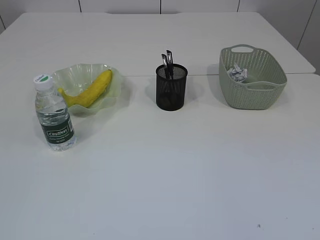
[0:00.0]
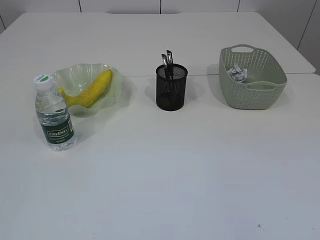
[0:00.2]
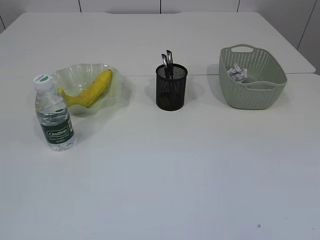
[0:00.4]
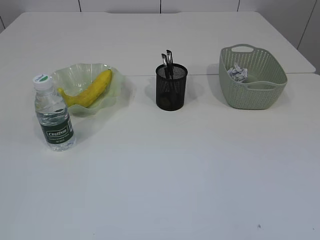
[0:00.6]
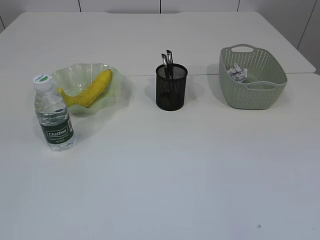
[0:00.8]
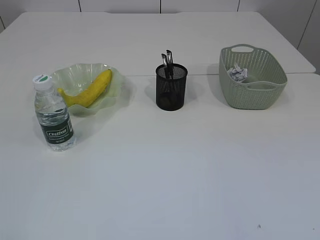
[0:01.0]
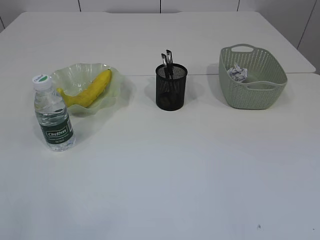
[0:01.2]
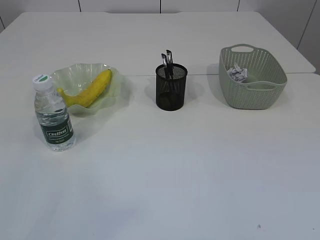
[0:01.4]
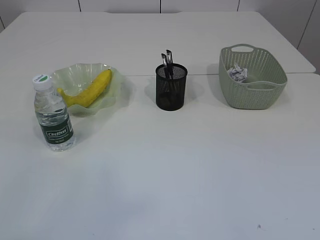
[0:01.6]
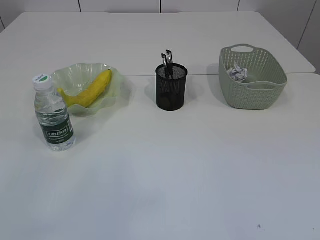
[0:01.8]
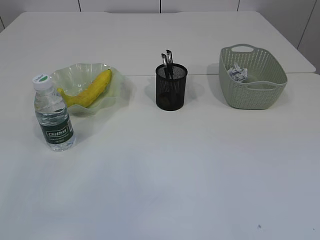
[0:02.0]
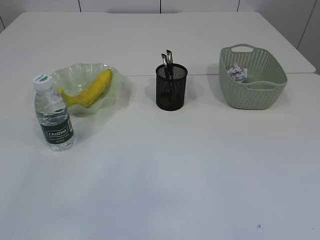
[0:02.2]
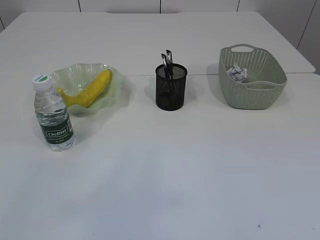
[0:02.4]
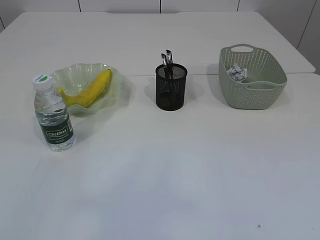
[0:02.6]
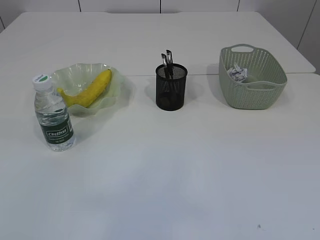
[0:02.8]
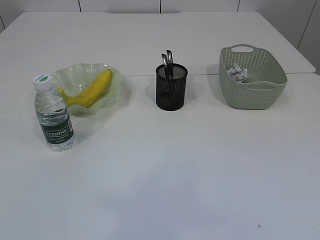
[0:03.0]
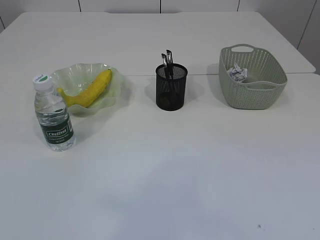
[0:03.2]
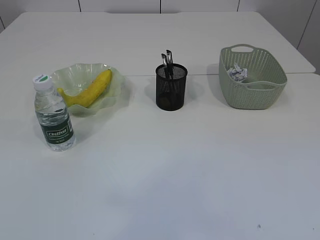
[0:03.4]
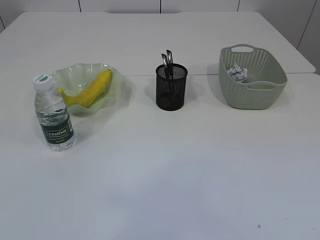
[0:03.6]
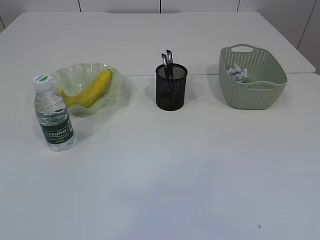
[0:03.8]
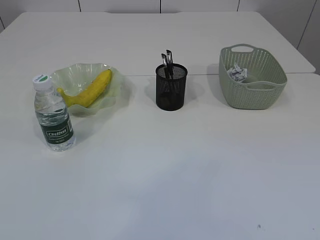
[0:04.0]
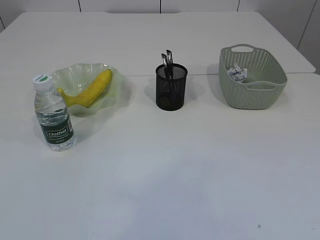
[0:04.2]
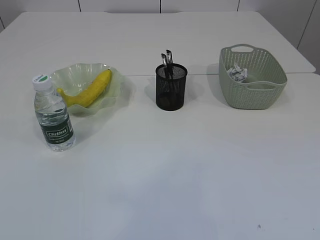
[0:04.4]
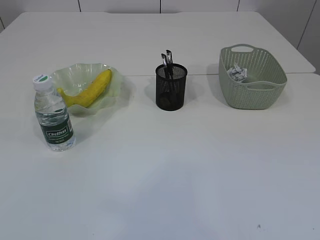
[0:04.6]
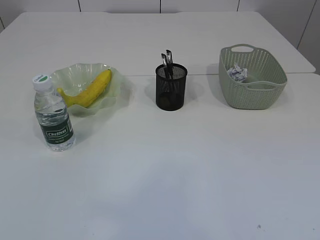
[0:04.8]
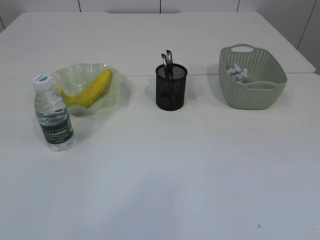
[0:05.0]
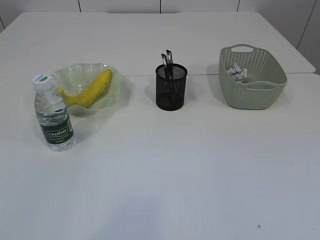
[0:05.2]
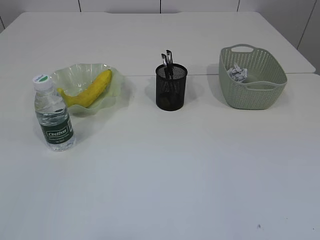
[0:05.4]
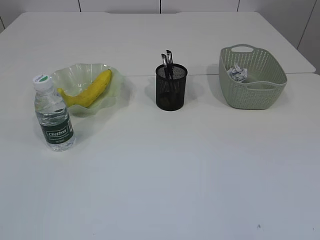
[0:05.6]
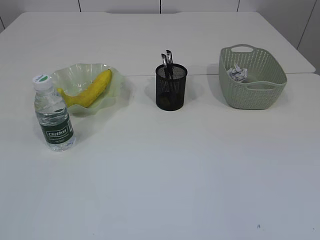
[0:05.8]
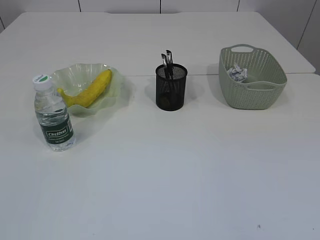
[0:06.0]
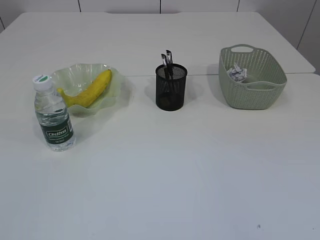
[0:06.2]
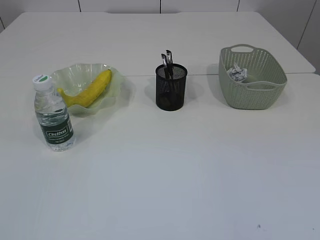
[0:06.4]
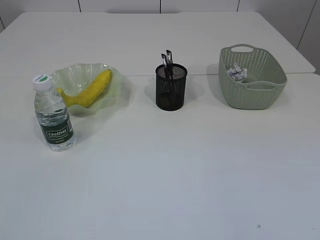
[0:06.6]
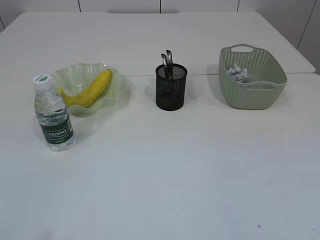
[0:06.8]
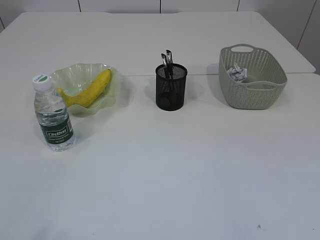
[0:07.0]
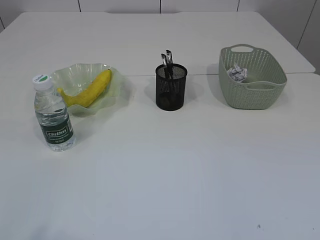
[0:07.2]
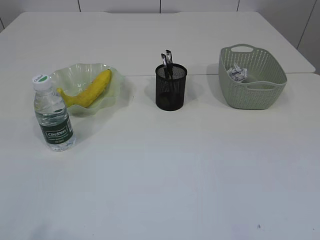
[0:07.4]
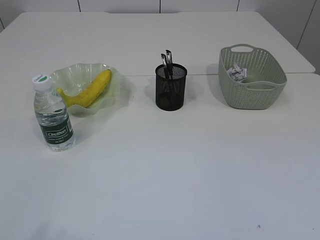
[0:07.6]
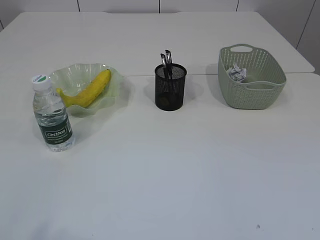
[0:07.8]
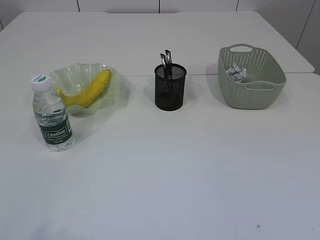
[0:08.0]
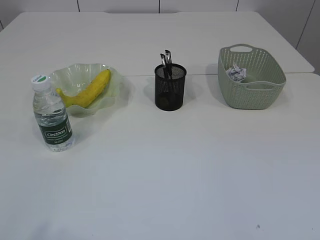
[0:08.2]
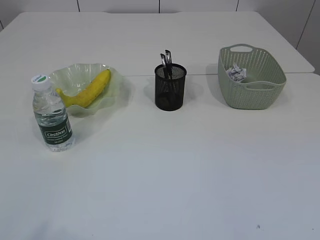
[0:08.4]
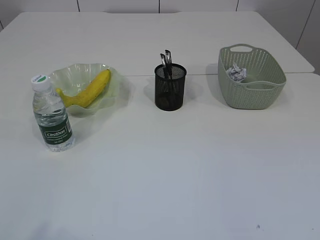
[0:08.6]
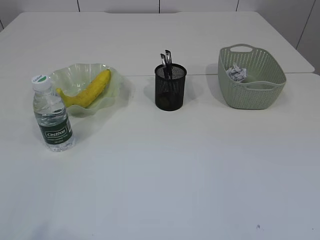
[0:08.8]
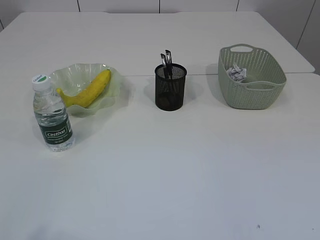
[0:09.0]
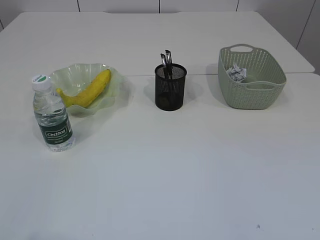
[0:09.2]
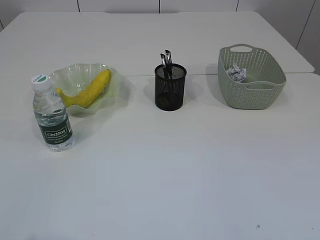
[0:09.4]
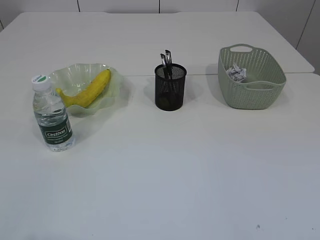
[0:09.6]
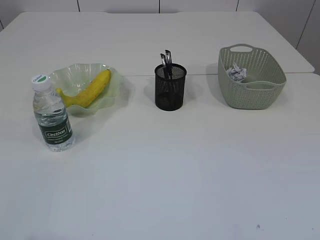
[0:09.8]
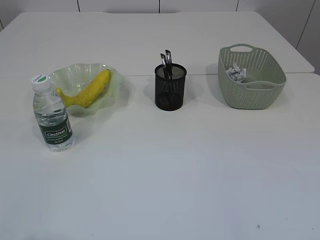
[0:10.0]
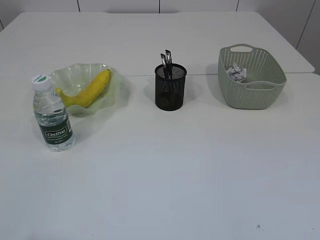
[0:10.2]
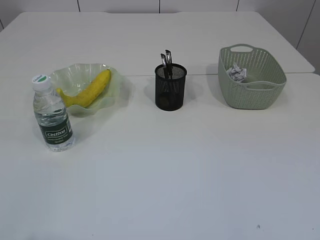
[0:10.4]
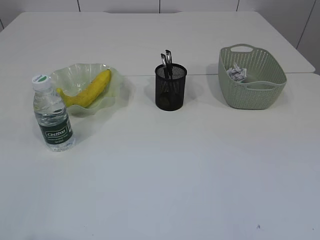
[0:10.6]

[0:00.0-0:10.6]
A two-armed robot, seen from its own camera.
0:07.6 to 0:09.0: Both grippers stay about where they are.

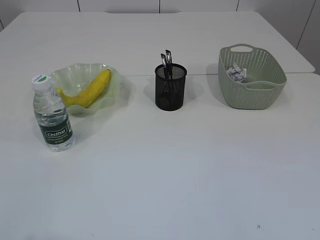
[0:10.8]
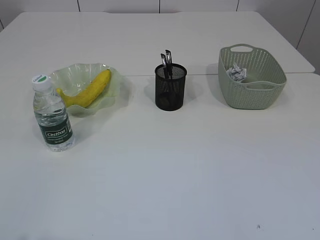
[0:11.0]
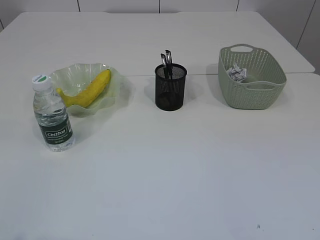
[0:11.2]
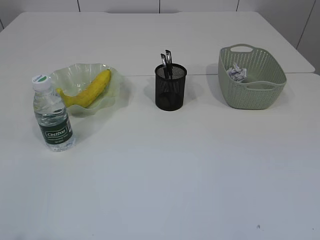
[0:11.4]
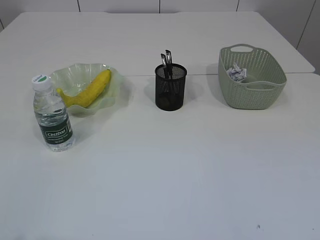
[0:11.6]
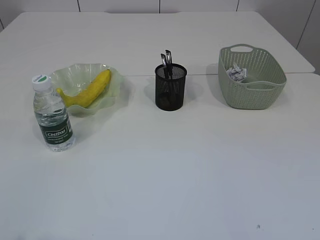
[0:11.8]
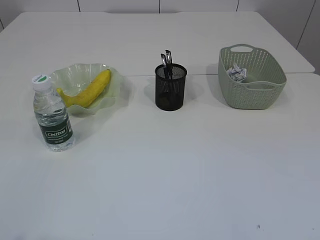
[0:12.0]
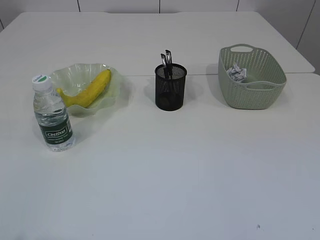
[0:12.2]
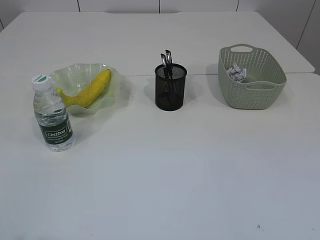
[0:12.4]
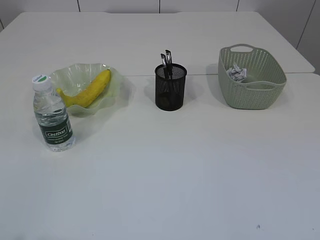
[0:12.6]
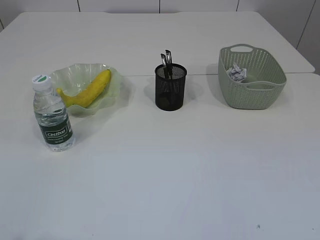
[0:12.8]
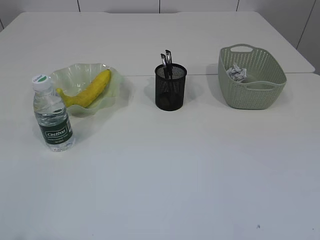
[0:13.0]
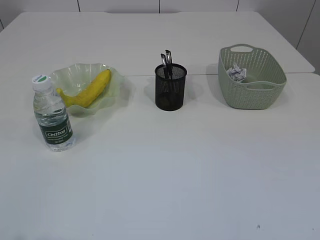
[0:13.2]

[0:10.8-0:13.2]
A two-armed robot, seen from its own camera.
0:12.0 to 0:13.2: Both grippers stay put.

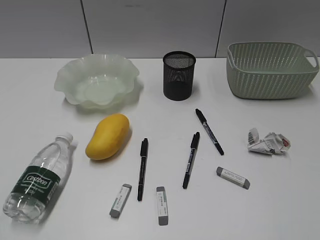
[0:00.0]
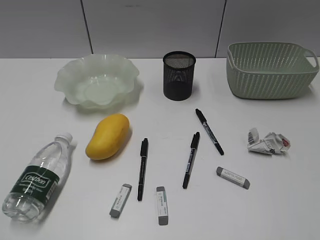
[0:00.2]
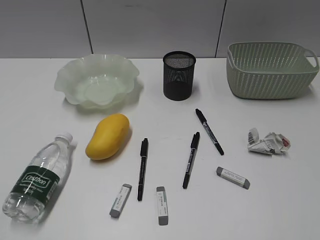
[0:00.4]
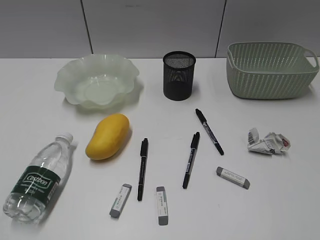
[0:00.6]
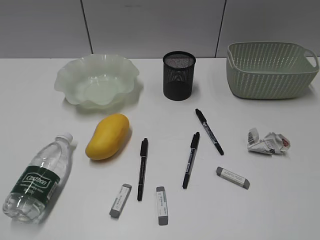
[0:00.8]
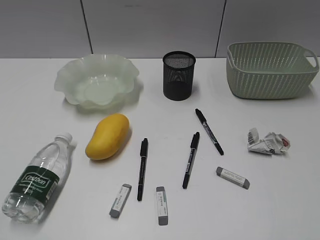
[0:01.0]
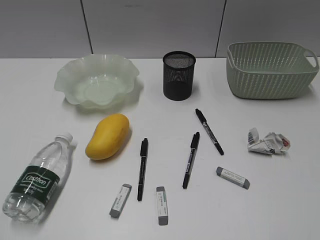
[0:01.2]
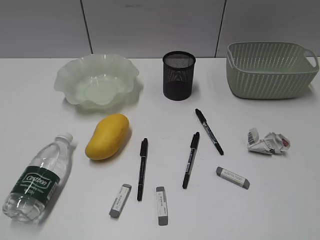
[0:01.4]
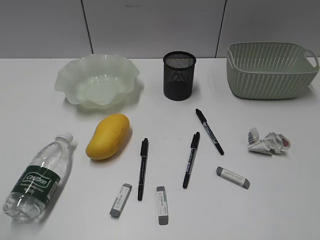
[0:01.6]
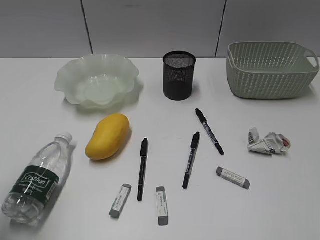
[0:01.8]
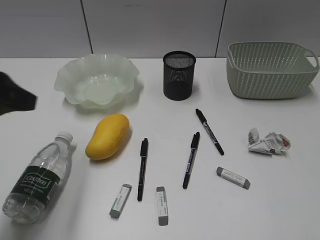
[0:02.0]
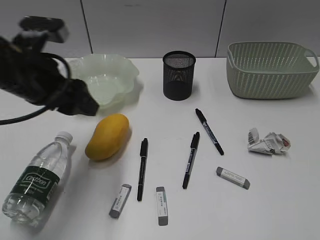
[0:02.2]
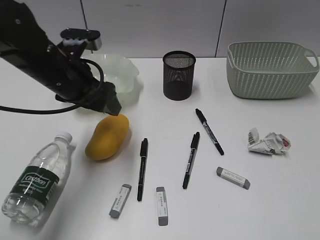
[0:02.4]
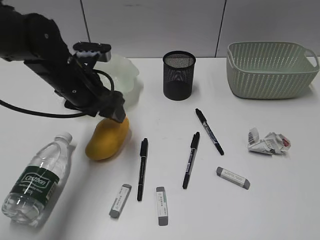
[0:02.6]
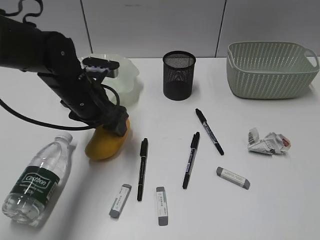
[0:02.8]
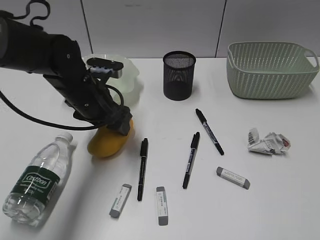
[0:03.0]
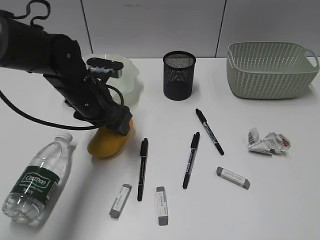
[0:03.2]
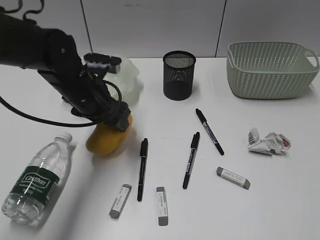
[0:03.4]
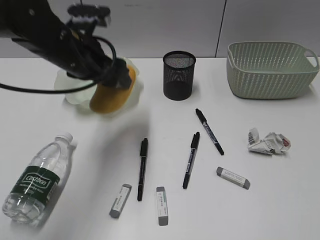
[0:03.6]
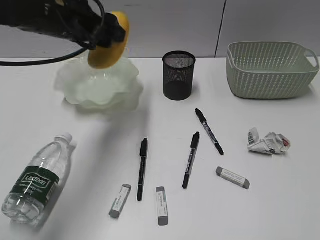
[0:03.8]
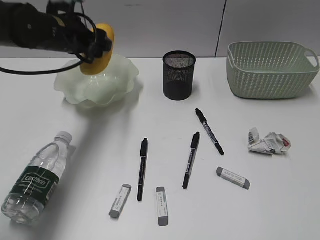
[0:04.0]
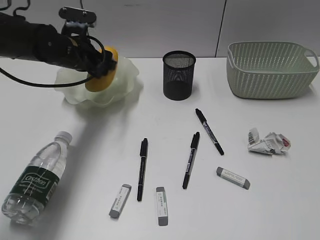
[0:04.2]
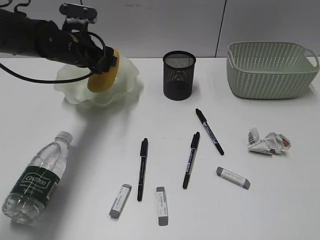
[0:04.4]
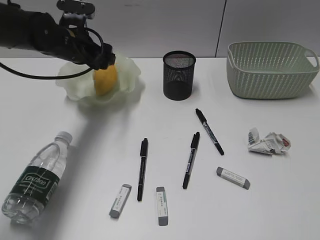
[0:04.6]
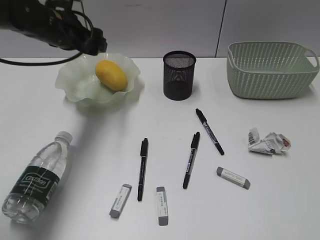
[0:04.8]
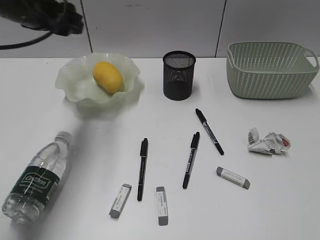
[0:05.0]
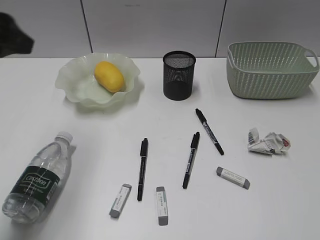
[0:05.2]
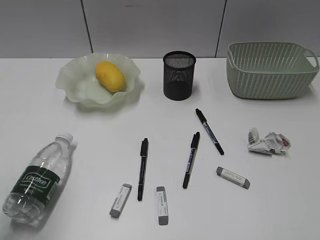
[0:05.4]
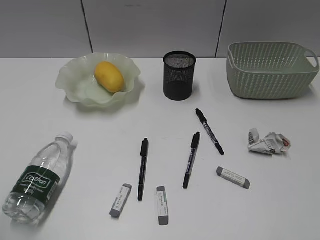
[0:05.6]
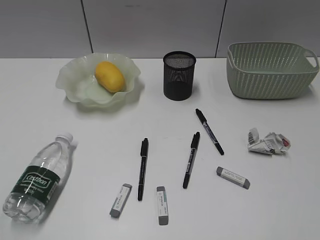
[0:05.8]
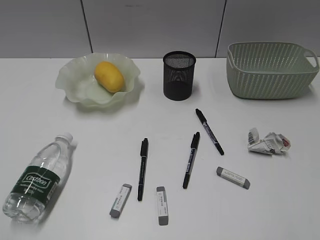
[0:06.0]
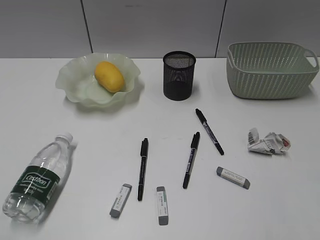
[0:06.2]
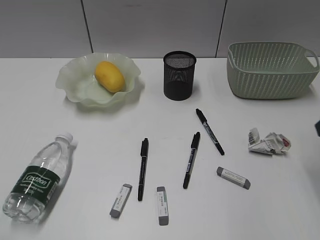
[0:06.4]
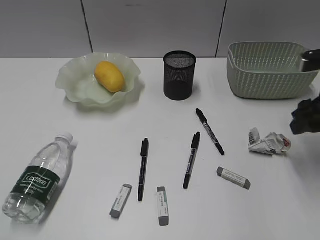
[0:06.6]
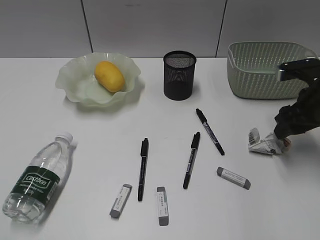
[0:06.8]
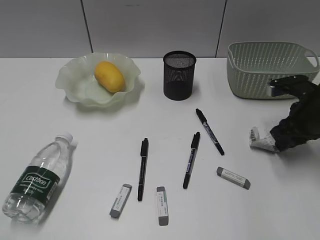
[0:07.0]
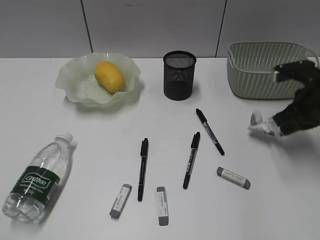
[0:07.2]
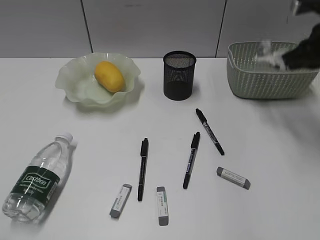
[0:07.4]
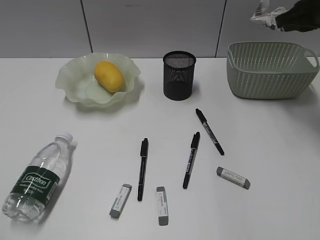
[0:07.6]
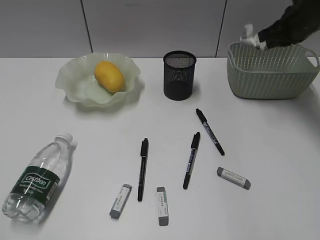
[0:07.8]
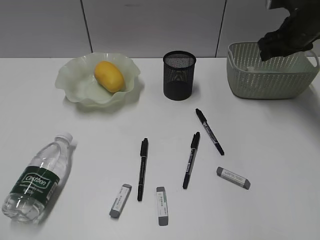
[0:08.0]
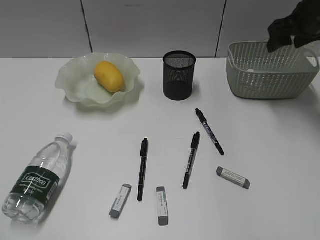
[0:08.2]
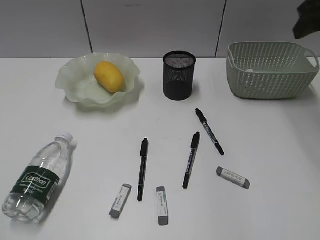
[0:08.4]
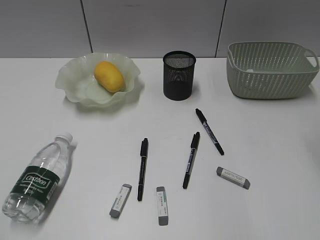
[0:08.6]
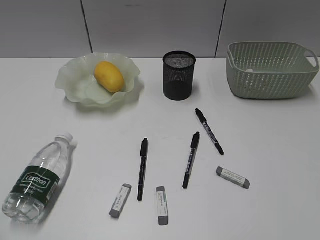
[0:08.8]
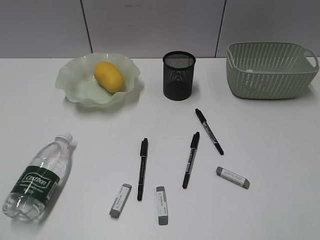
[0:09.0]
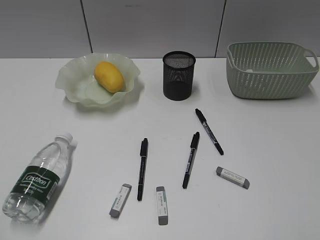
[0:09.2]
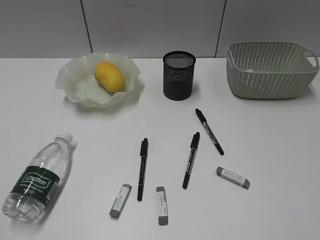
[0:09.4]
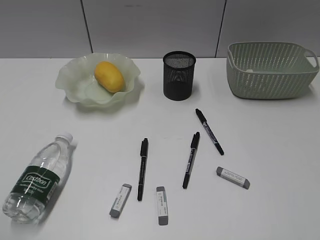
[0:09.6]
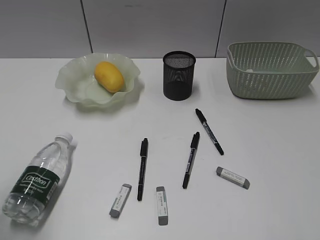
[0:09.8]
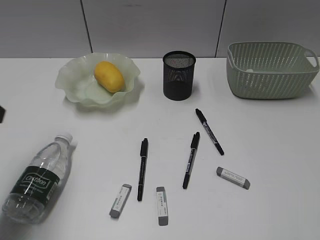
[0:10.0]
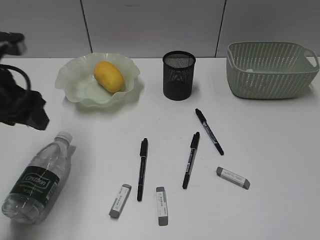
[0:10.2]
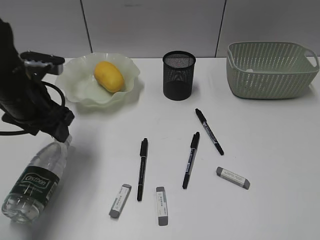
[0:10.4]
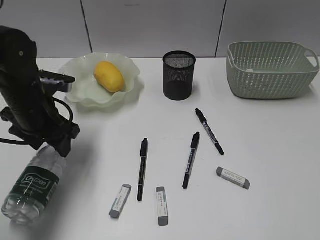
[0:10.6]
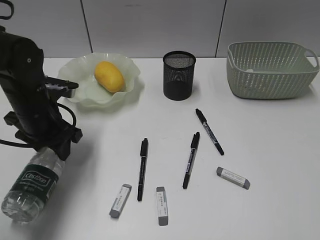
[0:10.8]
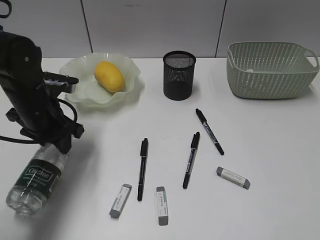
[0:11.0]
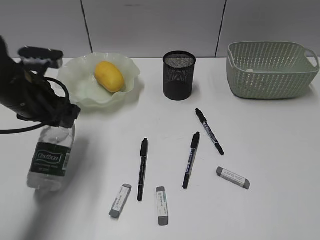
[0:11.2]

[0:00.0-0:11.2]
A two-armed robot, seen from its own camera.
Step, 0:01.4 to 0:03.2: Grasp the mango with left gripper.
Step, 0:03.4 to 0:04.6: Place the mango in the plate with left gripper.
Step, 0:04.8 to 0:07.0: Grasp the waste paper with right gripper.
Step, 0:07.2 to 0:08.0: Place the waste paper in the basket with right gripper.
Step, 0:08.2 to 0:10.8: Grasp the bottle with left gripper.
0:01.6 to 0:03.2: The left gripper travels forward, to the right and downward by about 40 cm, and opens.
0:03.2 to 0:04.8: The left gripper moves up and down over approximately 15 cm, changing direction 2 times.
0:04.8 to 0:06.4: The left gripper travels backward by some 40 cm, and closes; the right gripper shifts roughly 25 cm forward.
0:06.4 to 0:08.0: The right gripper travels forward by approximately 25 cm, and closes, then opens again.
0:08.0 to 0:09.6: The right gripper is displaced backward by about 50 cm.
0:09.6 to 0:11.2: The left gripper heads forward and downward, covering roughly 30 cm.
